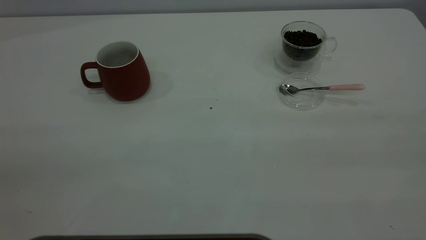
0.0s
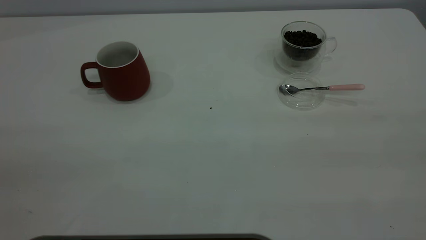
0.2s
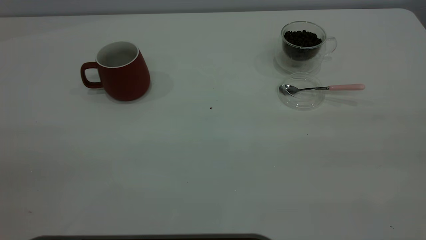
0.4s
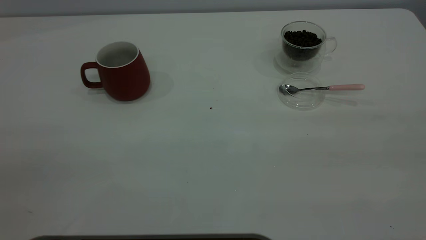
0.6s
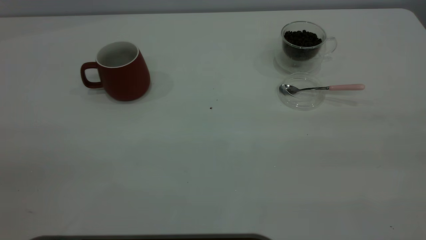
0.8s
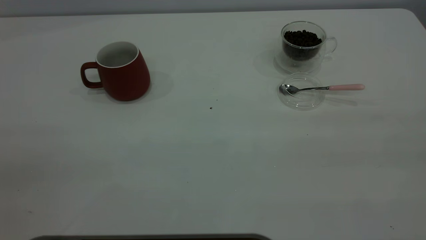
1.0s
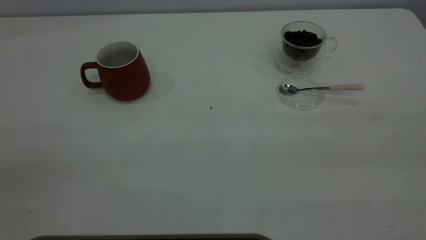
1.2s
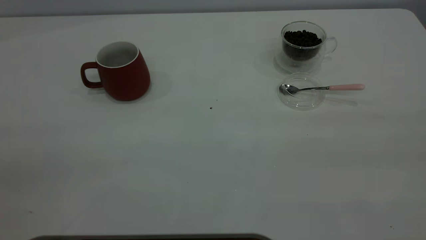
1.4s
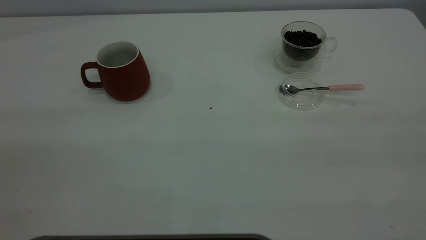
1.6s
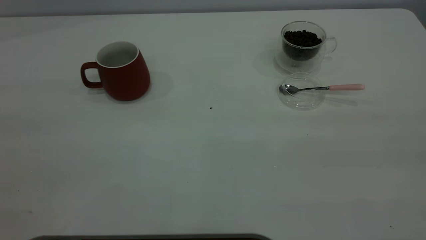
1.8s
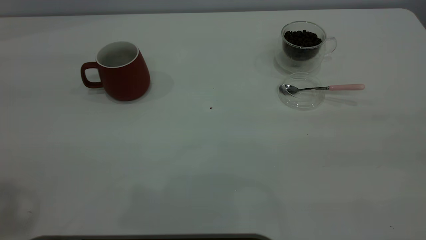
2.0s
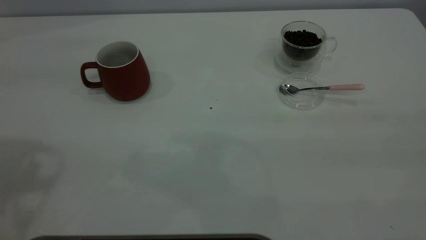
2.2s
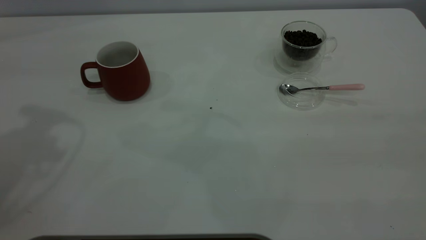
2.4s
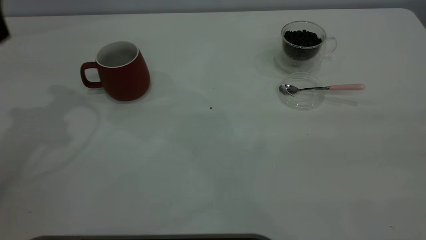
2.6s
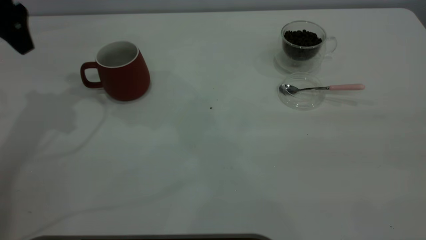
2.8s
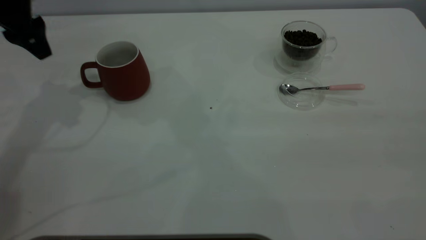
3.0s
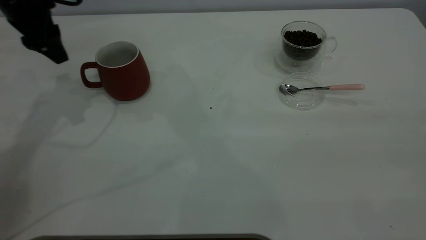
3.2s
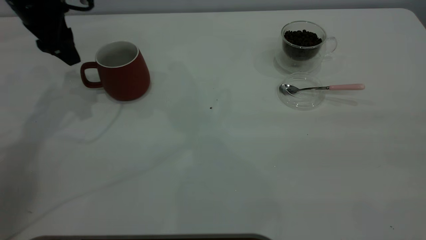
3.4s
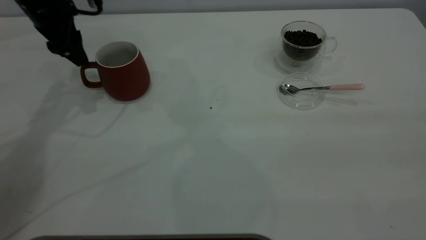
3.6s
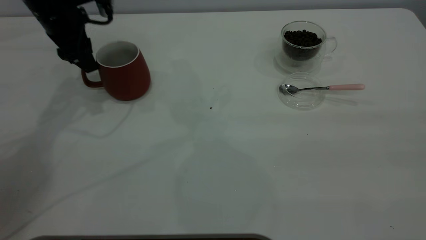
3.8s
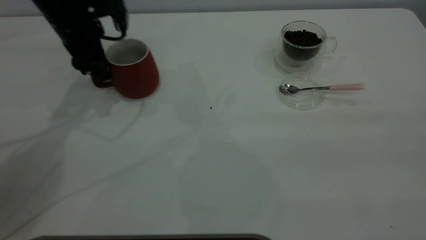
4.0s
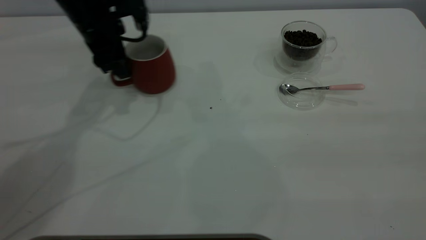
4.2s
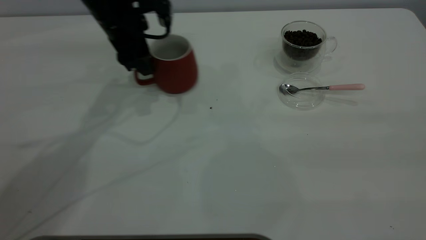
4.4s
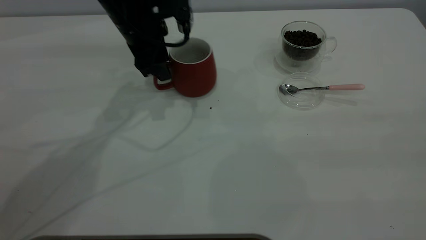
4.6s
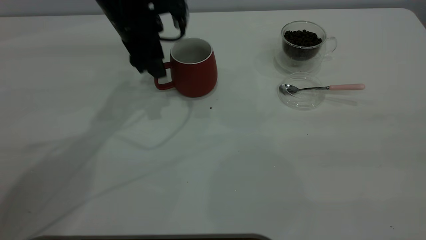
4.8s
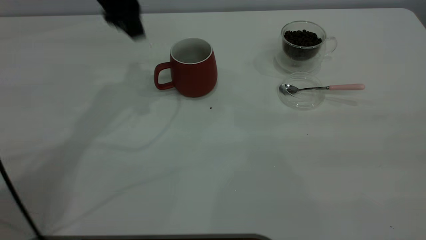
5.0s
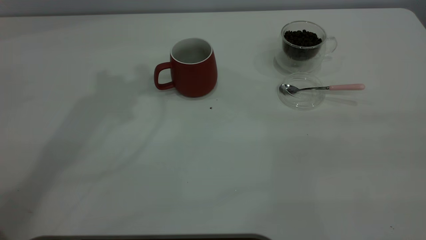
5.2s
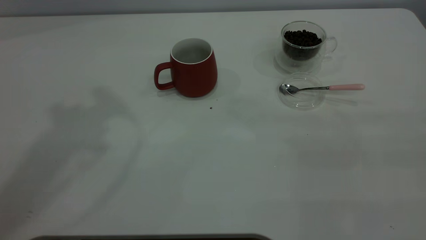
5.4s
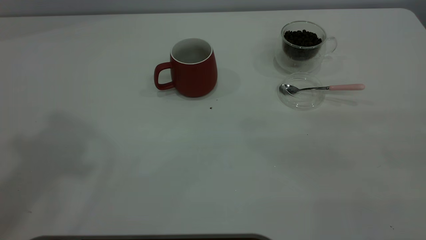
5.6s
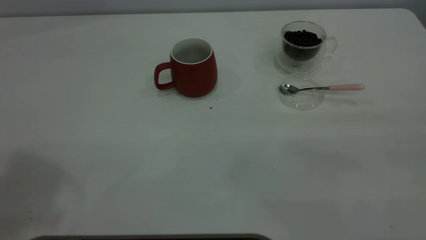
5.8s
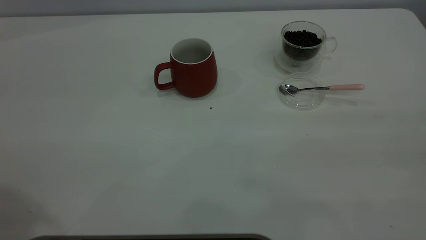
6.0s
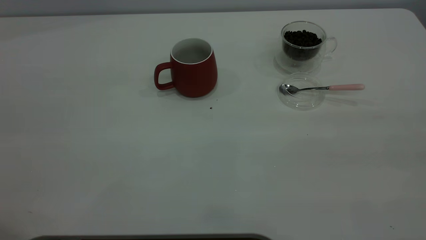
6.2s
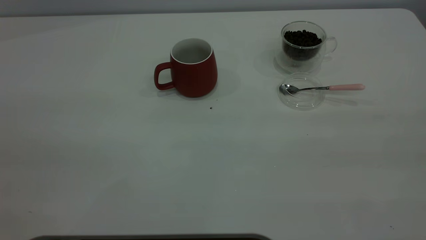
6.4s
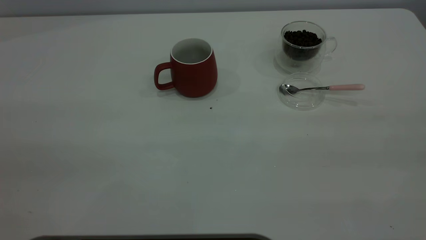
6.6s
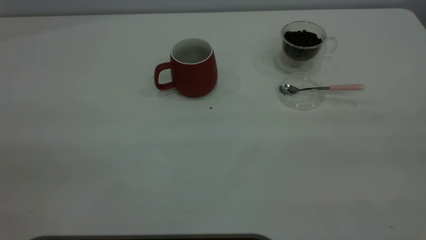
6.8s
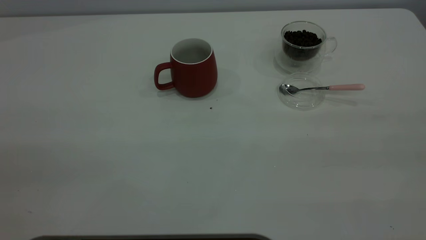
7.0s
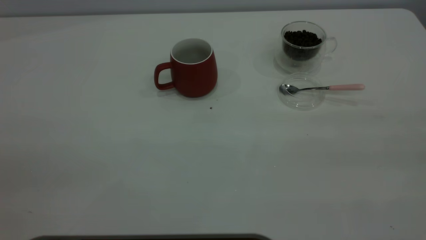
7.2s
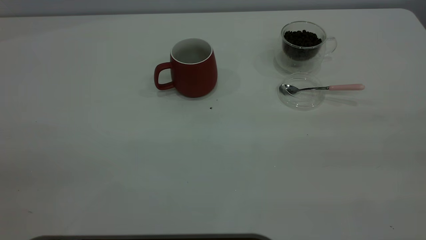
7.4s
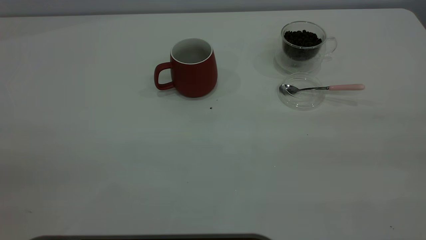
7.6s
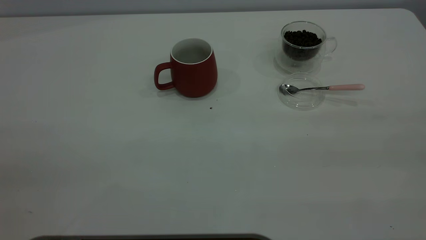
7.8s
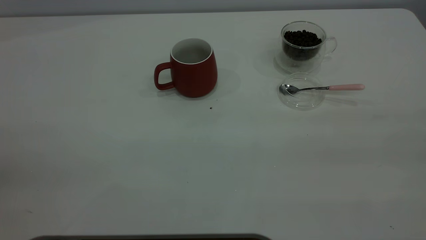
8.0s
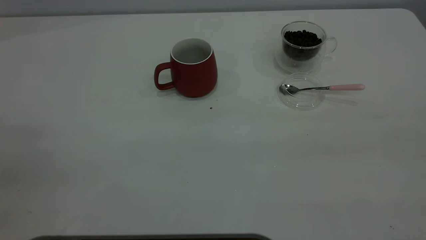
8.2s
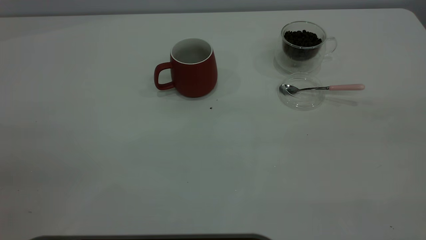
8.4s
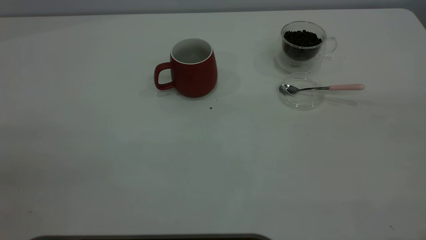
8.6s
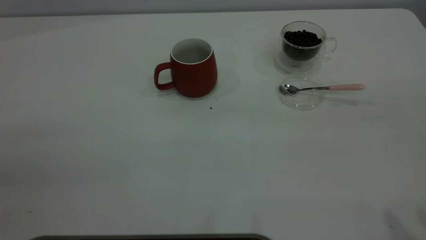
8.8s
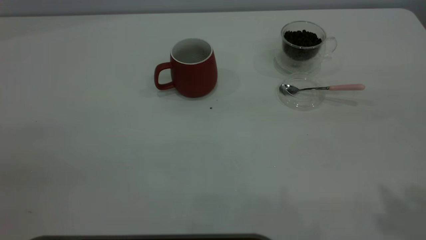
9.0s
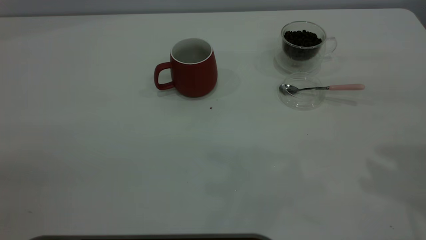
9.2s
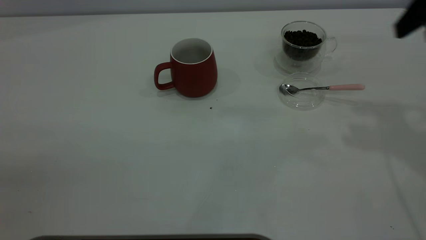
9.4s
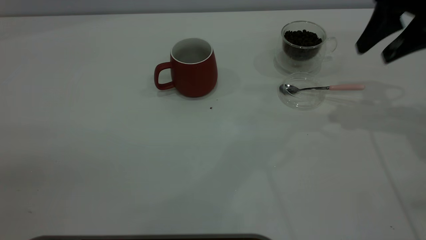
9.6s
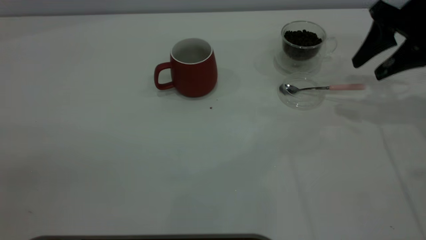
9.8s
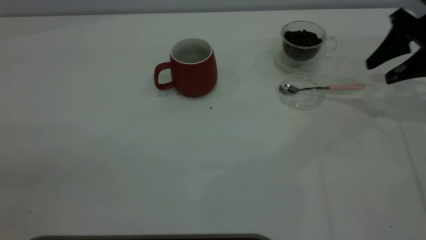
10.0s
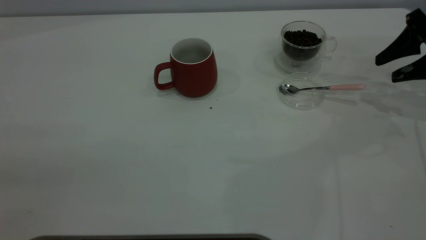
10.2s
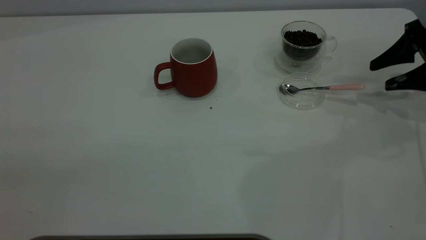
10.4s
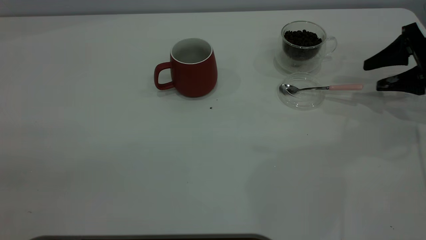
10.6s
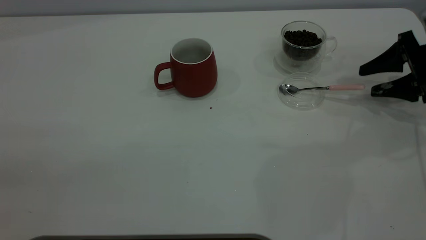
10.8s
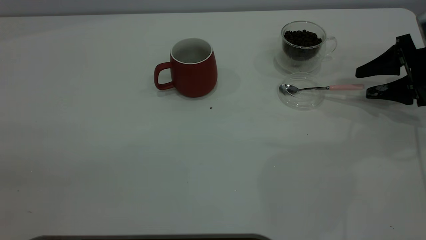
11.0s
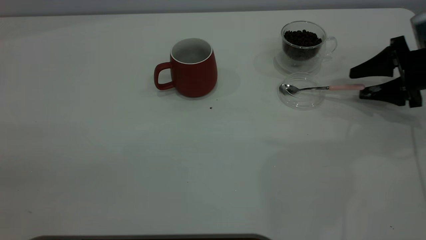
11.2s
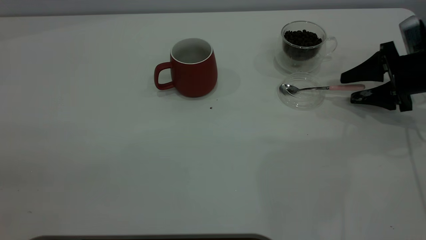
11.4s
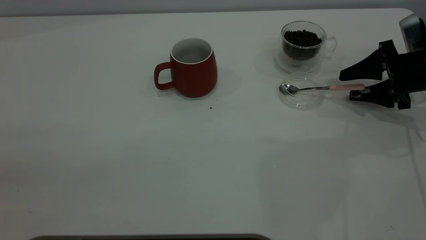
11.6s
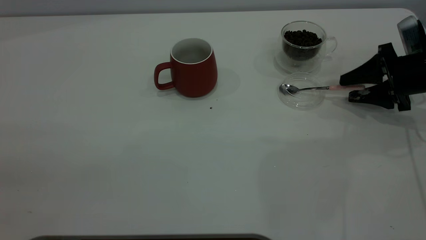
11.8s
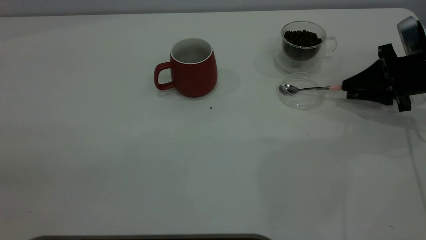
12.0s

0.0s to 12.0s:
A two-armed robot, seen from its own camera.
Task of the whole recording: the left gripper place the red cup in the center of the table, the right gripper take the pink spoon from the cup lid and scoop out the coffee beans from the coffee cup and put them into the red cup, the right gripper put the spoon back into the cup lid.
Step, 0.0s to 4.8s: Move the cup to the center of view.
1.6s to 3.0s: The left gripper travels forward and downward by some 40 cm.
3.0s to 4.4s: The left gripper is displaced to the right and downward by roughly 15 cm.
4.4s to 6.0s: The left gripper is displaced backward and upward by roughly 40 cm.
9.0s to 10.4s: The right gripper travels forward, downward and to the right by about 35 cm.
10.4s to 12.0s: The right gripper moves approximately 5 cm, and closes up.

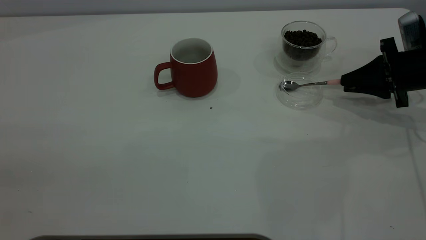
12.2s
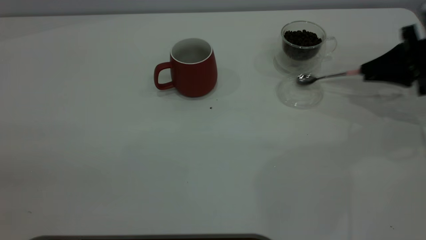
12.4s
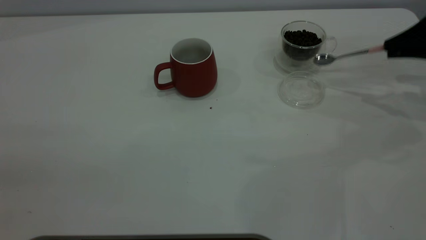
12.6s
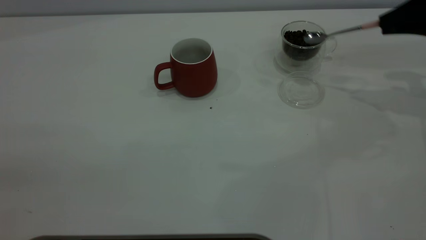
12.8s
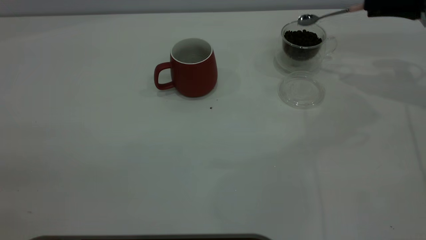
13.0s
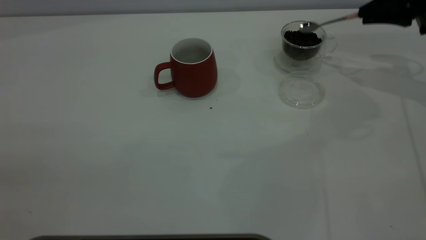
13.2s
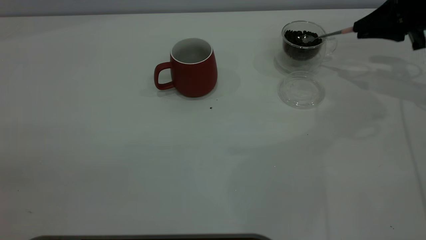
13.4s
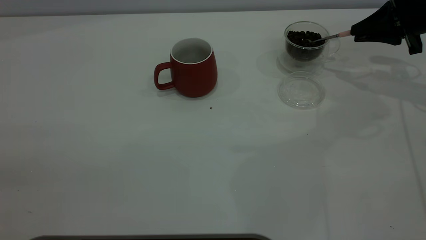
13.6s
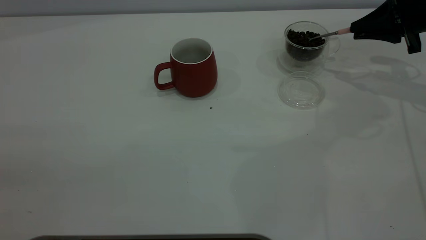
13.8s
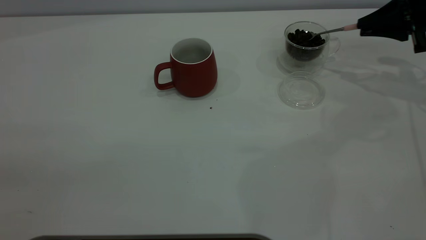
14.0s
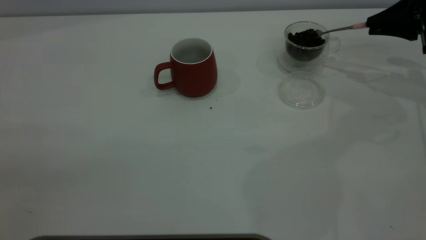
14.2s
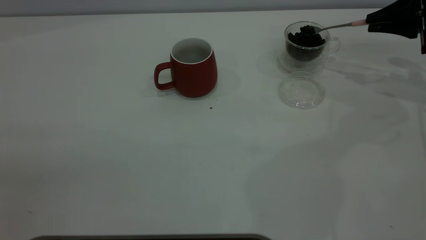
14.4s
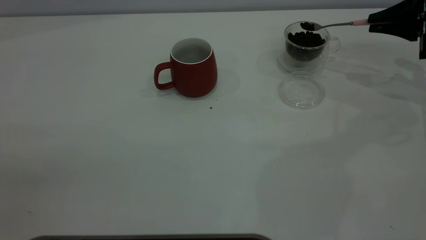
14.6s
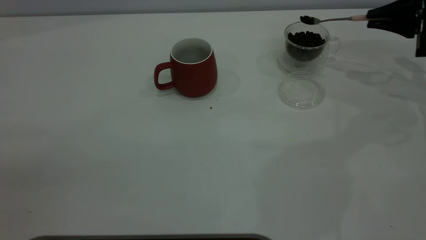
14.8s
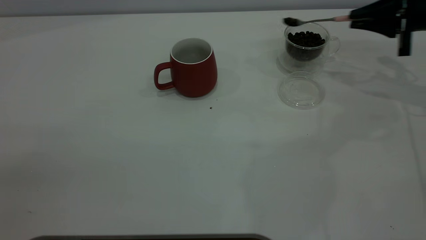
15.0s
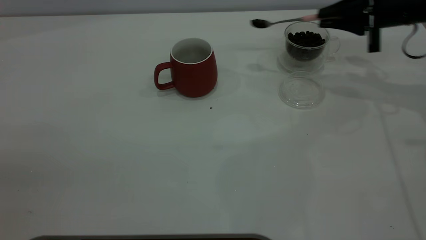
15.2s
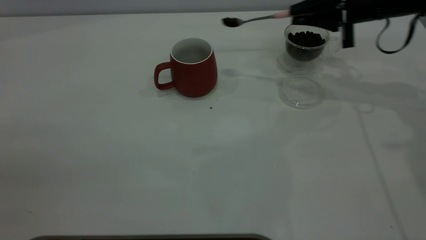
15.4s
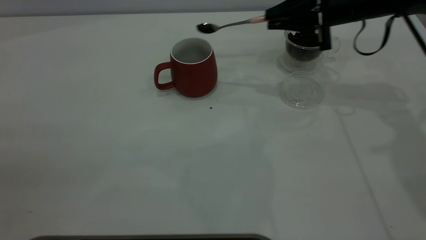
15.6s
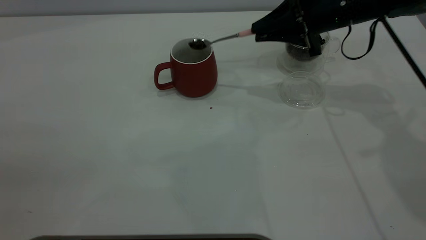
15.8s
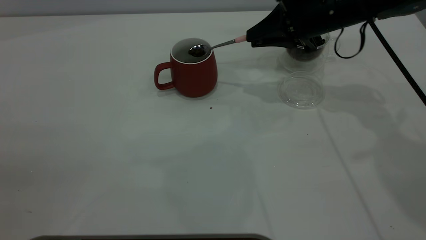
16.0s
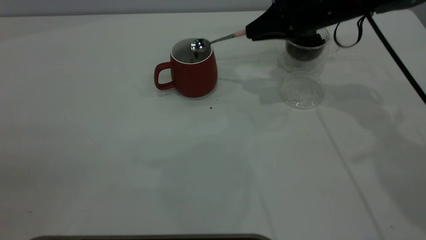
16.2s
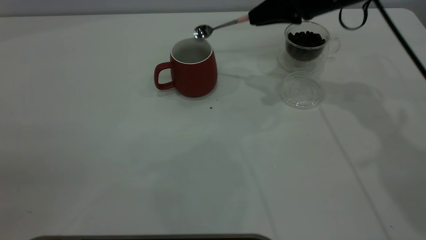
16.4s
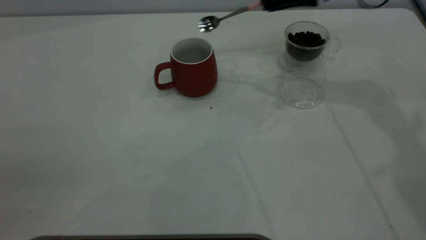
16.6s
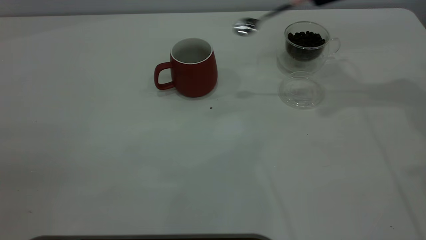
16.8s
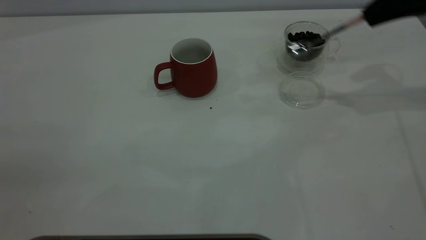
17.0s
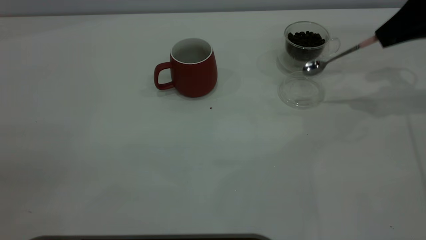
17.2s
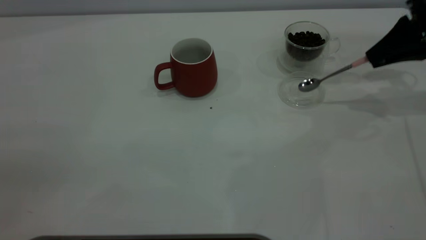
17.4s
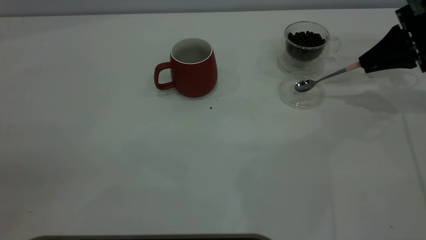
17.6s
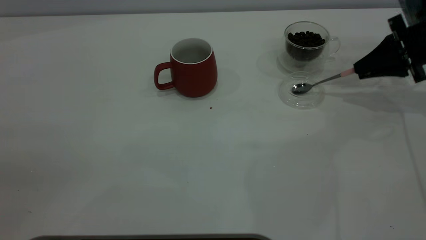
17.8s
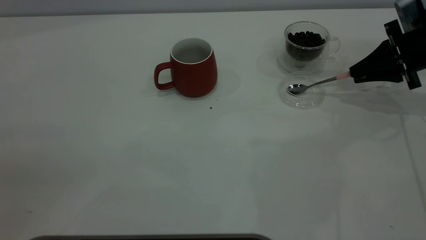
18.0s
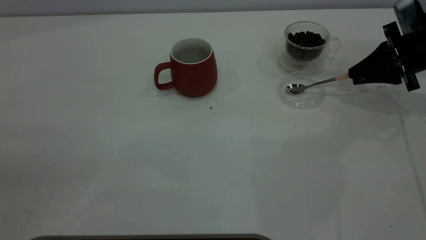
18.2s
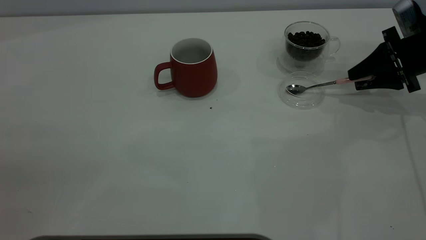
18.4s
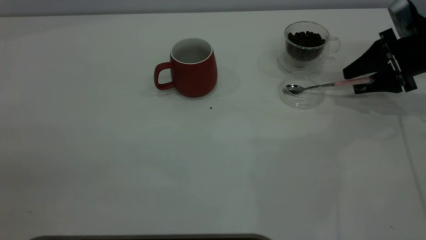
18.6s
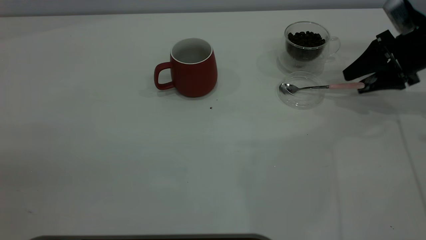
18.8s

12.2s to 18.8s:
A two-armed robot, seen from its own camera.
Task of the whole recording: the left gripper place the red cup in the center of the table, the right gripper take the pink spoon from the cup lid and scoop out the coffee beans from the coffee cup and put them into the red cup, the right gripper put the spoon back into the cup lid.
Step, 12.6s to 16.4s: Scoop a spoonful of beans into the cup.
12.2s to 13.8s: The right gripper moves upward and forward, approximately 10 cm.
13.8s to 15.4s: The right gripper travels to the left by roughly 10 cm.
15.4s to 17.2s: The right gripper shifts approximately 10 cm to the right.
17.2s to 18.8s: The right gripper goes roughly 10 cm downward, and opens its fingers.
